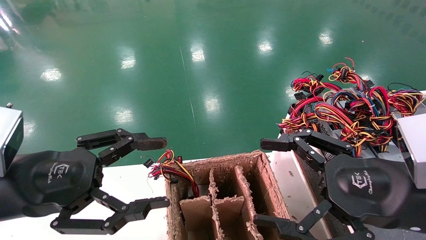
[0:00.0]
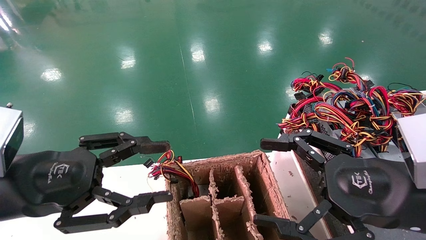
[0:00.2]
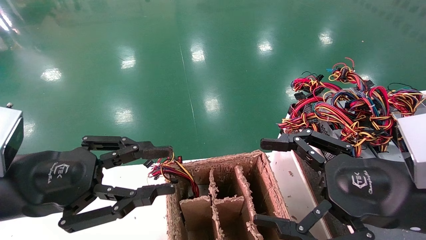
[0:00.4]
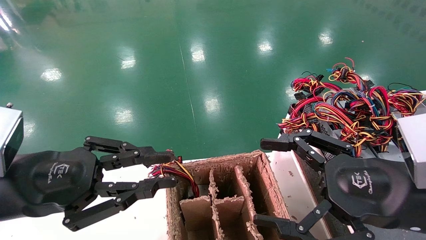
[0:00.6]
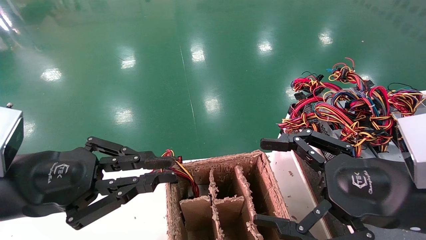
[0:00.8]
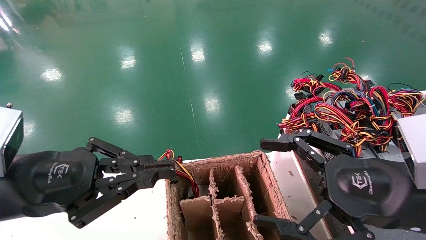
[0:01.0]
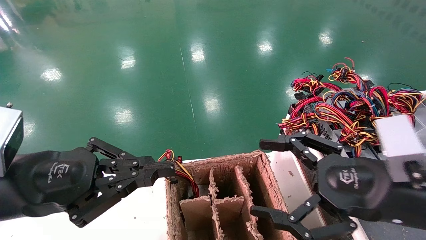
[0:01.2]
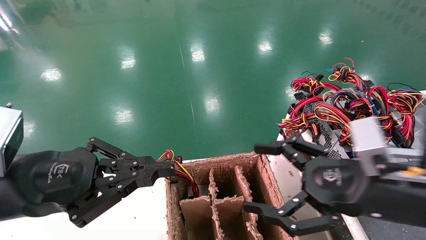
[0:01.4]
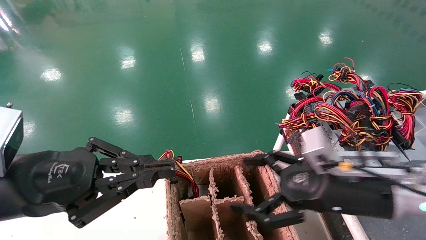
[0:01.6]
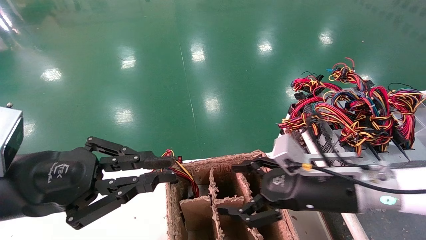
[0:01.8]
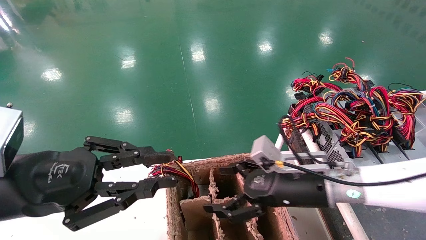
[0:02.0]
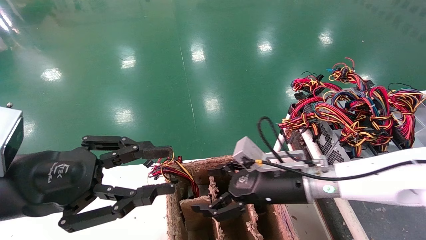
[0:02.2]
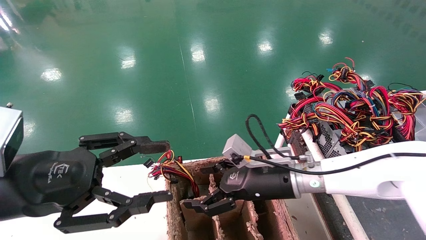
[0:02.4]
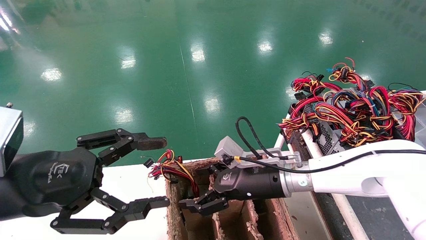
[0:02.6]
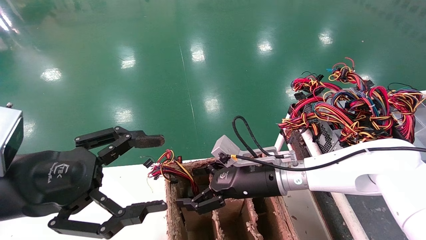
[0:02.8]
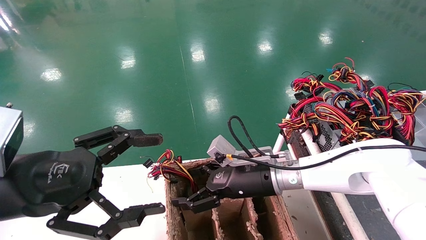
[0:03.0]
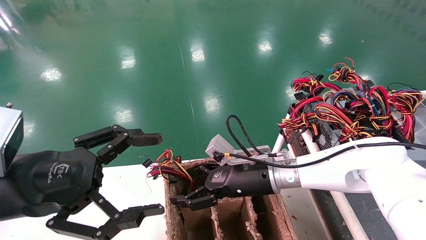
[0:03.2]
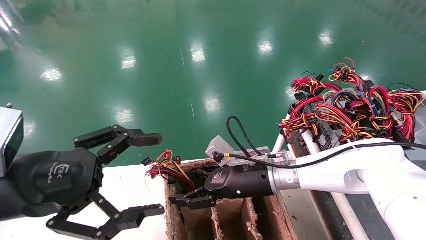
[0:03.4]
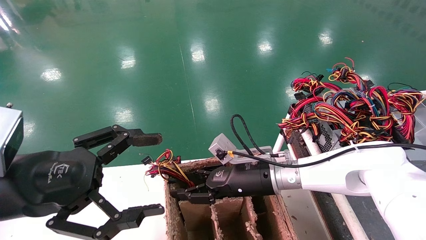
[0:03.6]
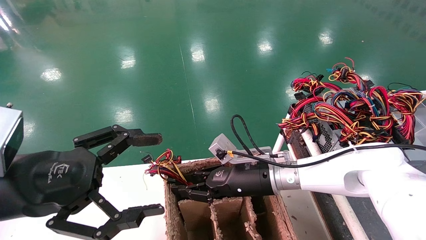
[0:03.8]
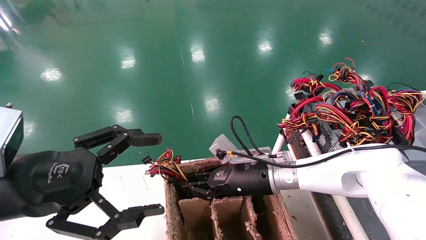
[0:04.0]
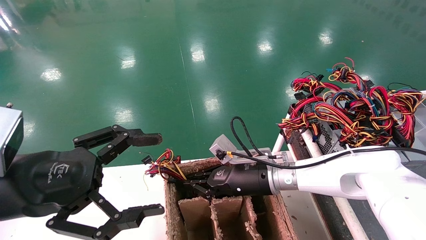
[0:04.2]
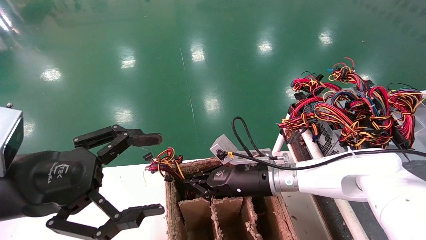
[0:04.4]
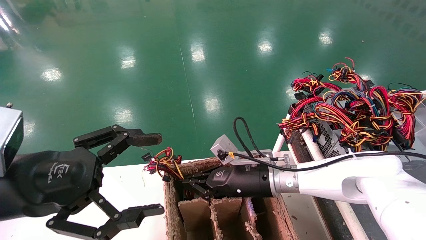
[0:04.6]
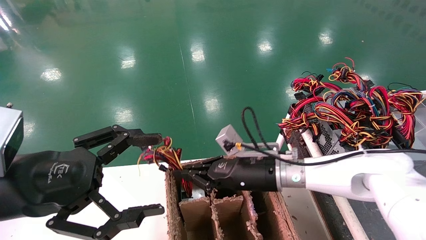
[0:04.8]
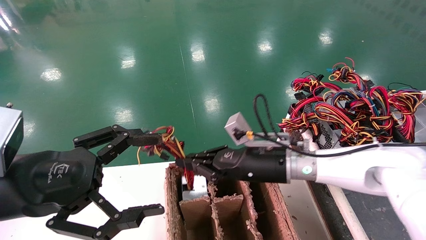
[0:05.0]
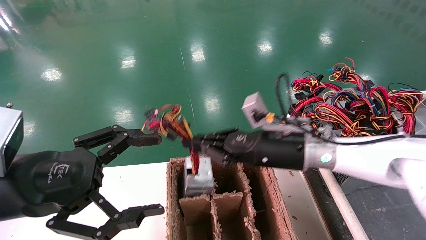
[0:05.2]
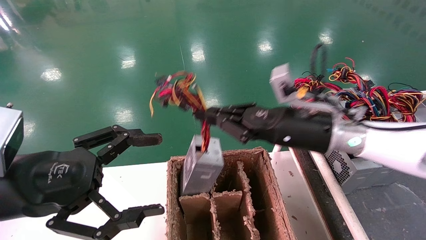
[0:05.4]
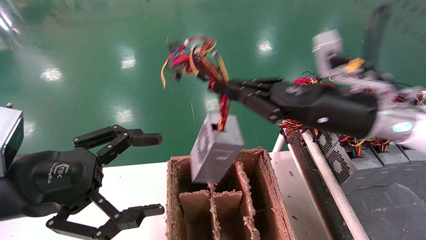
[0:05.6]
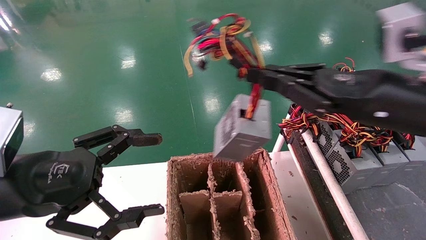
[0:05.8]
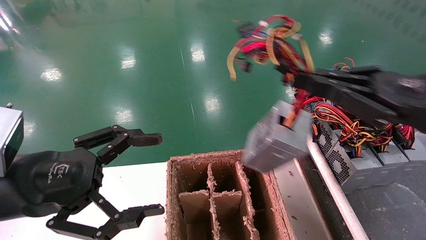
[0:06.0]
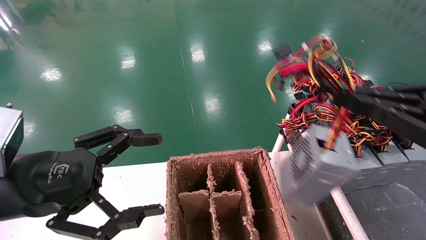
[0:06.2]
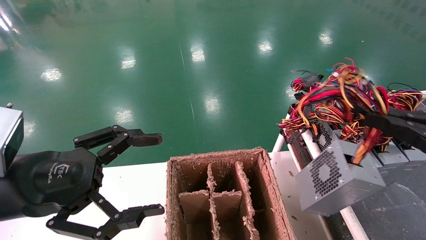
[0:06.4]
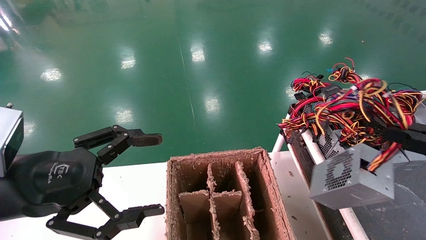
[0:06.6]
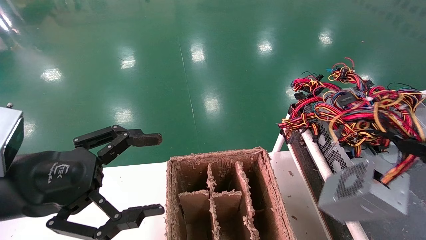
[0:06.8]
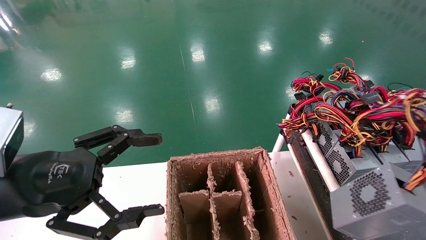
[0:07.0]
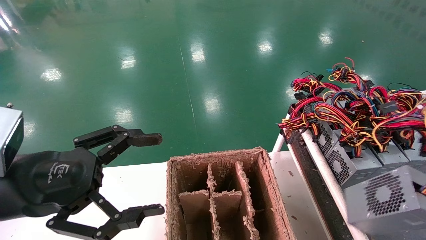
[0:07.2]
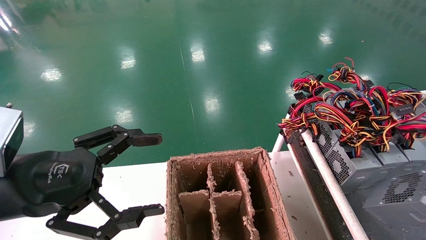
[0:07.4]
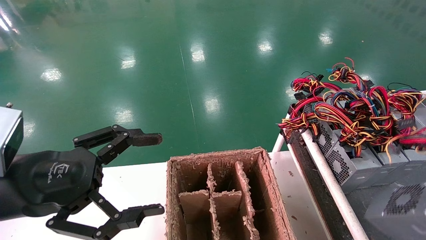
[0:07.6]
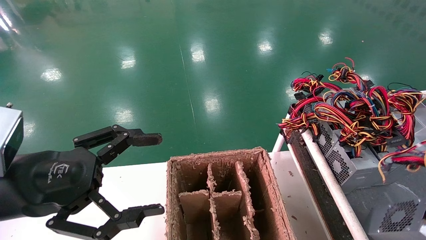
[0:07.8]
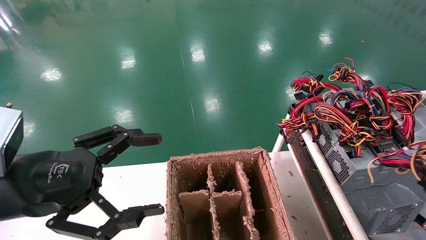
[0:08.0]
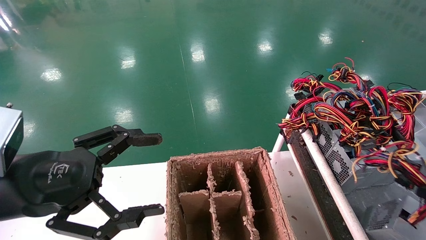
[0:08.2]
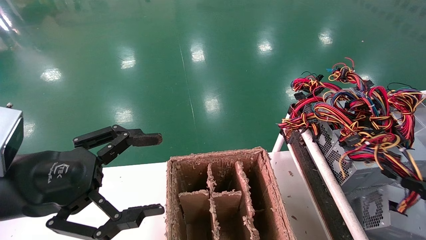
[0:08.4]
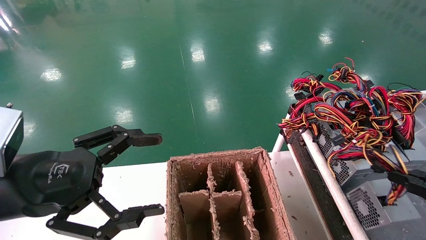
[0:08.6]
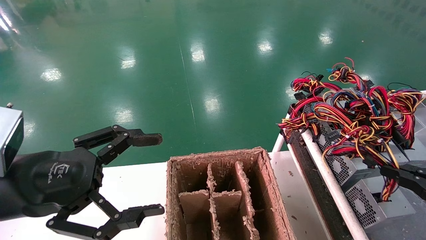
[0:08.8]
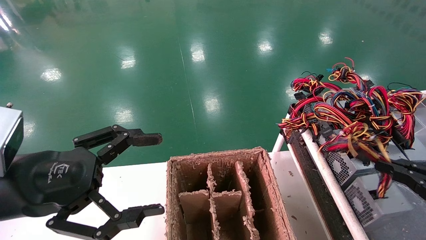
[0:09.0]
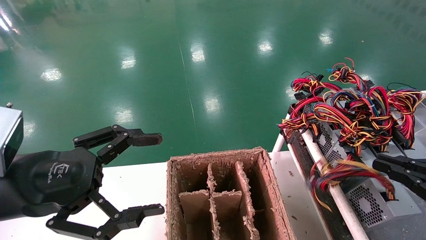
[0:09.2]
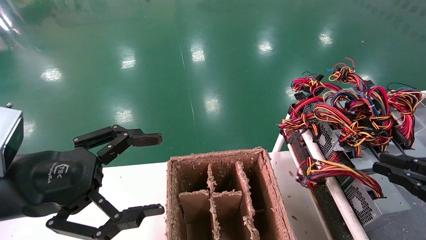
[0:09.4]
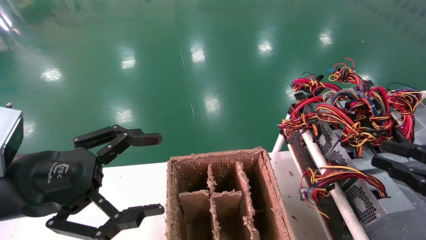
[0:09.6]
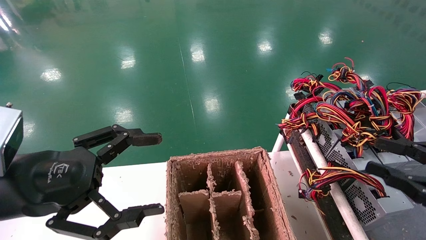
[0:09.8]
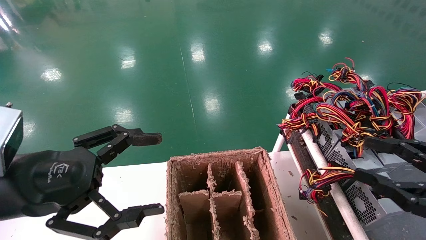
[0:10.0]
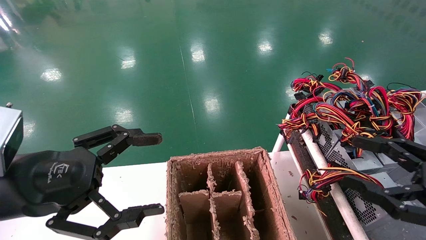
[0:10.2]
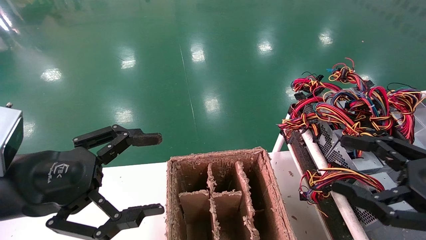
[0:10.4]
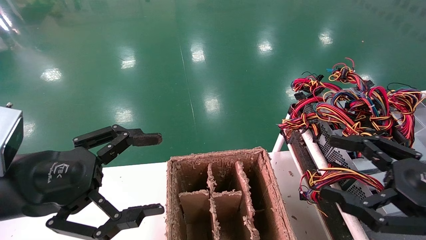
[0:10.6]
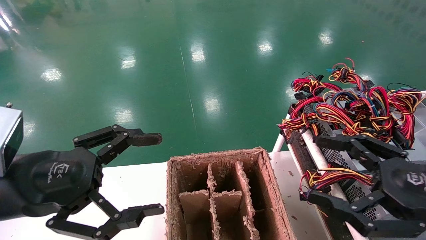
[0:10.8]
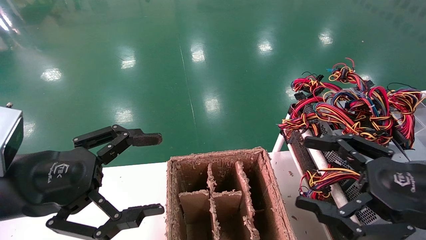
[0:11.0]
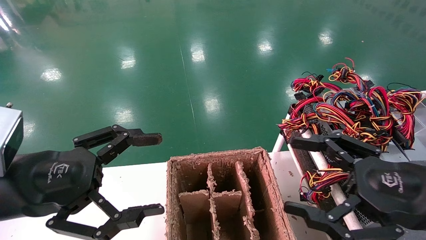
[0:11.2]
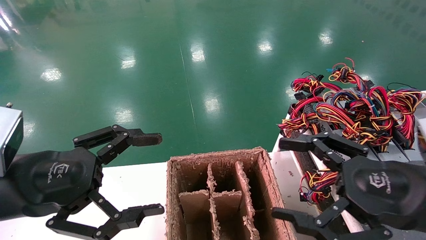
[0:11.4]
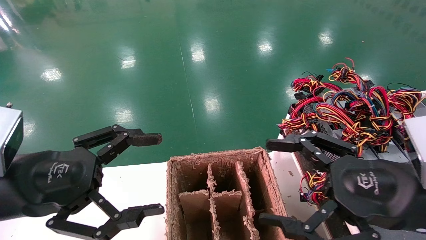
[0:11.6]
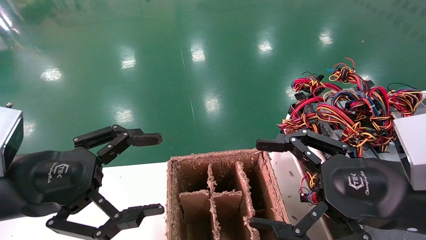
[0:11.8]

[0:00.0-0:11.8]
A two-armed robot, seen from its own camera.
Step, 0:01.4 to 0:04.2: Grab and lift the power supply from the large box.
Step, 0:04.4 to 0:09.2: Place the power supply on the operating table.
0:00.0 to 0:01.4: The left gripper closes. The right gripper shifts by approximately 5 cm.
0:01.4 to 0:03.0: The left gripper opens. The right gripper shifts approximately 20 cm to the left, forward and downward.
0:03.0 to 0:04.4: The right gripper closes its fingers.
0:04.4 to 0:06.0: The right gripper is displaced to the right, upward and backward by roughly 35 cm.
0:06.0 to 0:07.4: The right gripper moves to the right, backward and downward, about 25 cm.
0:07.4 to 0:08.8: The right gripper moves to the left, approximately 5 cm.
0:08.8 to 0:10.4: The right gripper shifts some 10 cm to the left, and opens.
0:10.4 to 0:11.8: The right gripper goes about 10 cm to the left.

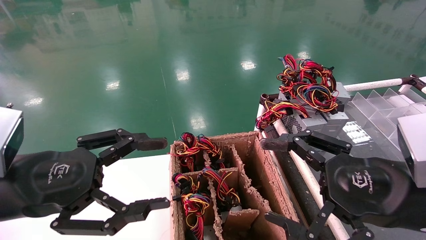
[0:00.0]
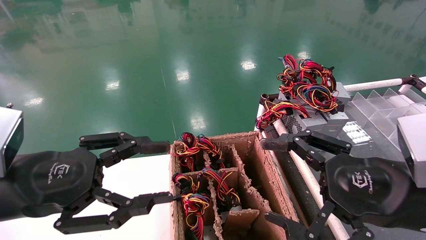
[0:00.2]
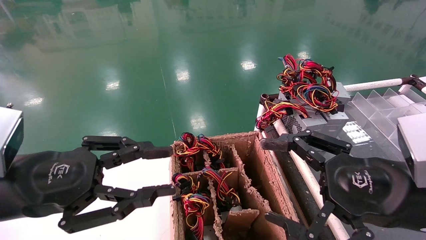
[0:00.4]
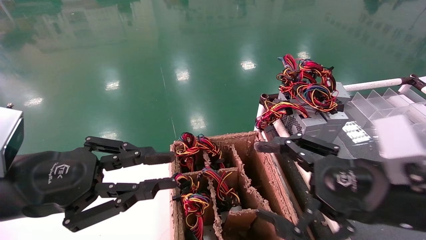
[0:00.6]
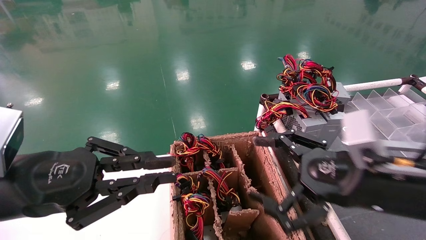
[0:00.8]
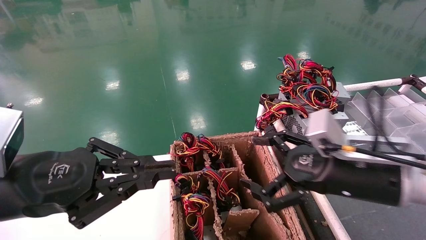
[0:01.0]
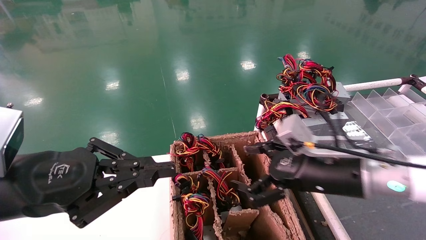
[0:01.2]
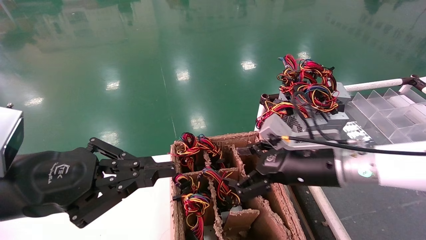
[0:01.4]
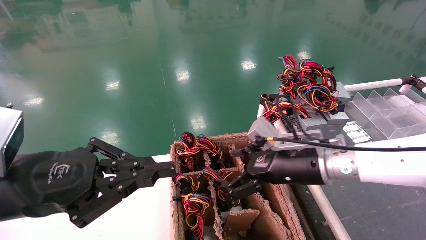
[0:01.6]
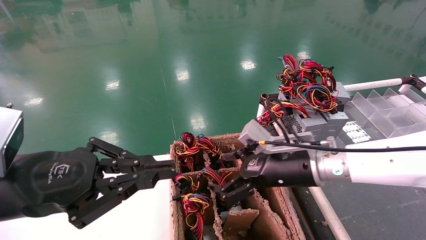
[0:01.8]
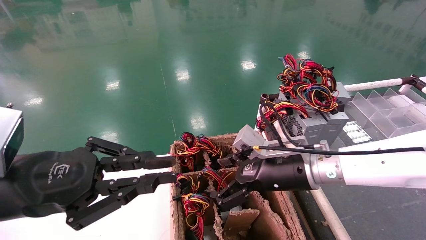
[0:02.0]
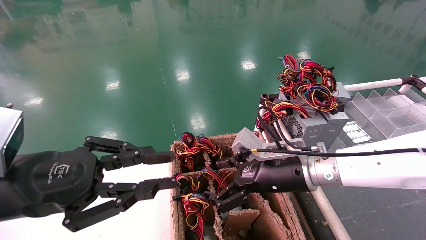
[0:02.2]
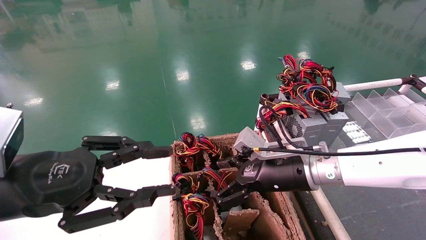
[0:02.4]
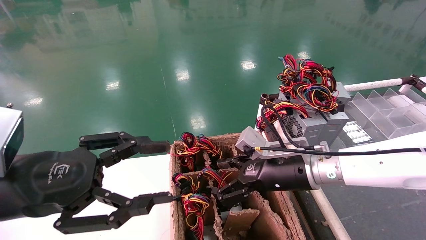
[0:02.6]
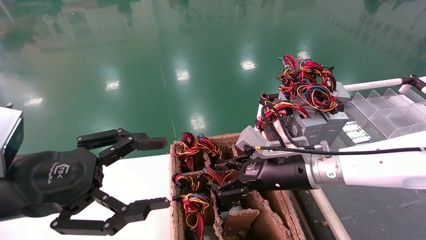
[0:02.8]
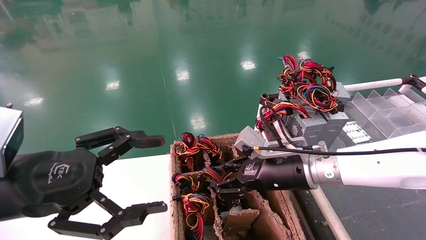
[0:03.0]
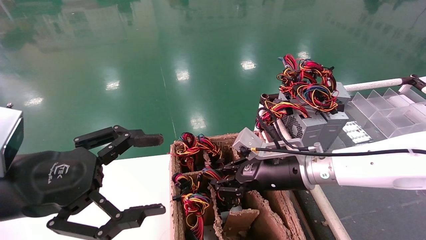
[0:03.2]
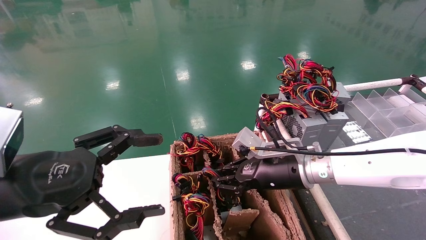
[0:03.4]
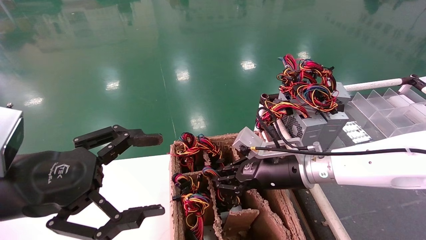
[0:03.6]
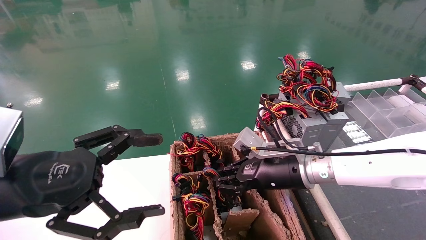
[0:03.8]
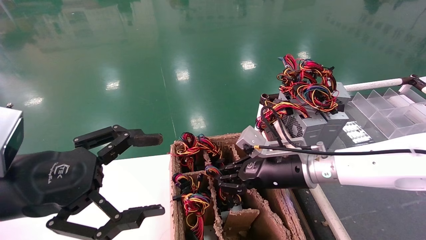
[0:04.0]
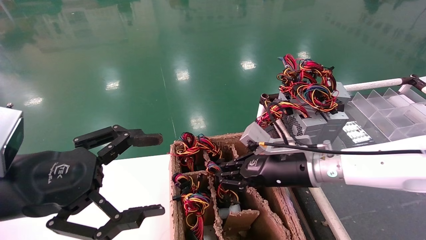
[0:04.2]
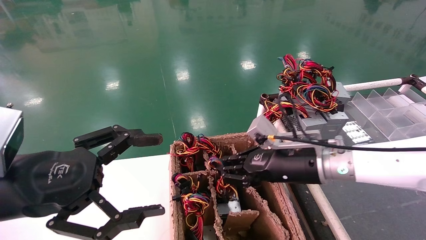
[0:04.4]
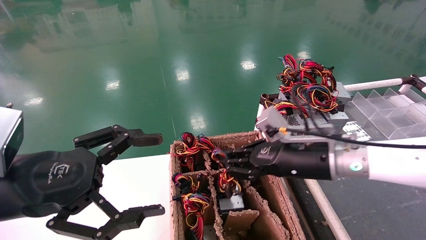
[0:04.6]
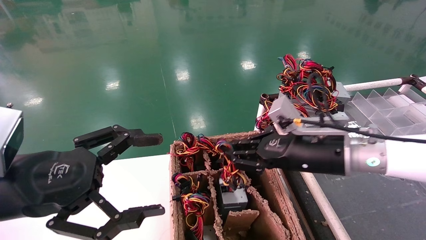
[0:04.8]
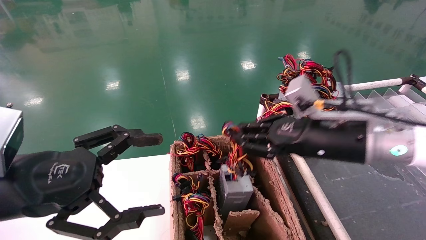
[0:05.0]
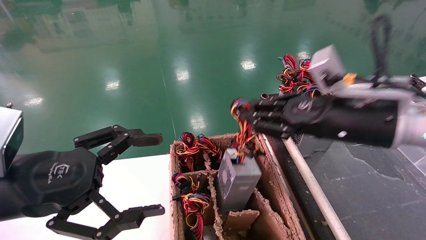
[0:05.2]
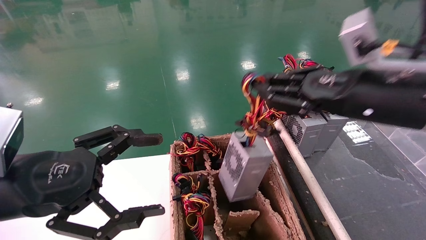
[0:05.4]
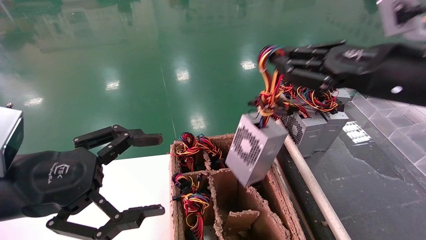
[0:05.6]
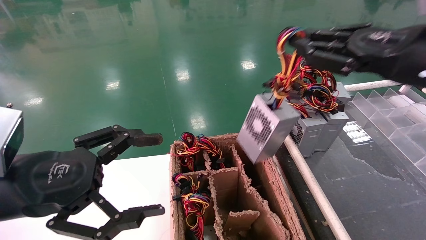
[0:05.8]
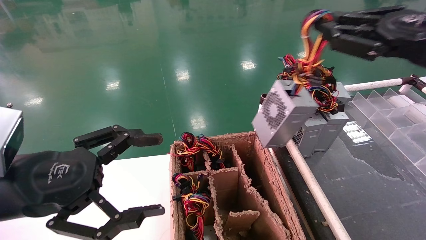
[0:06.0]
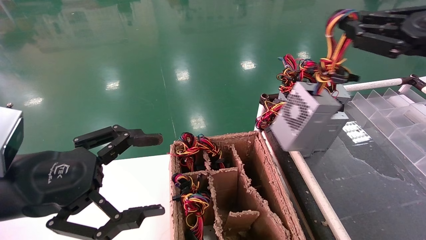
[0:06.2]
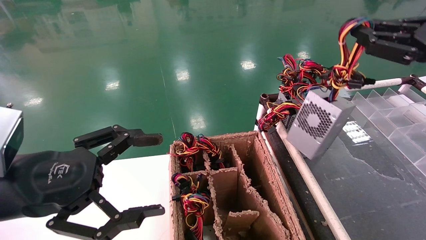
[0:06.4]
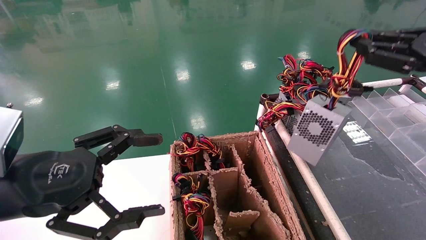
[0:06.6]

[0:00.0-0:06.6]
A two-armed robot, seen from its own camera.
Step, 0:01.2 to 0:03.8: Grab and lift the power supply from the large box.
0:00.0 to 0:01.6: The left gripper closes up. Meanwhile the right gripper shifts approximately 15 cm forward and to the left.
0:01.6 to 0:03.2: The left gripper opens up. Meanwhile the right gripper closes.
0:03.2 to 0:05.0: The right gripper travels upward, to the right and backward by roughly 10 cm.
0:05.0 to 0:06.6: The right gripper moves to the right and upward, roughly 20 cm.
